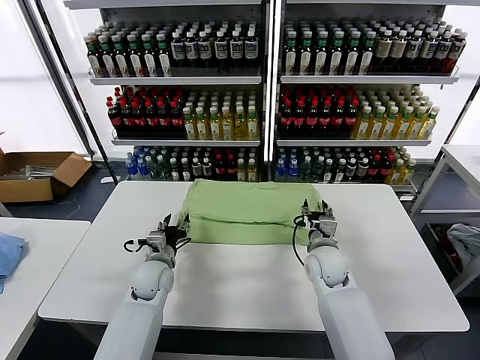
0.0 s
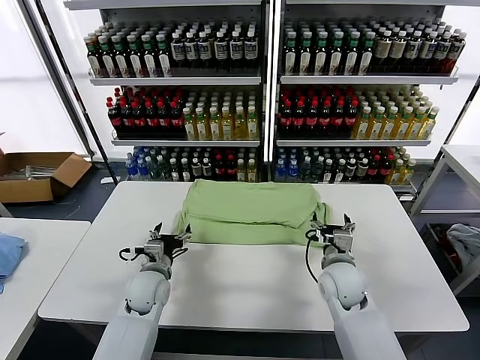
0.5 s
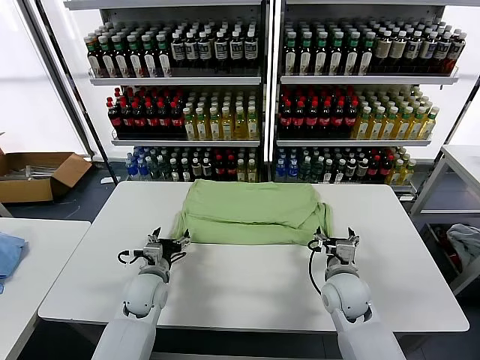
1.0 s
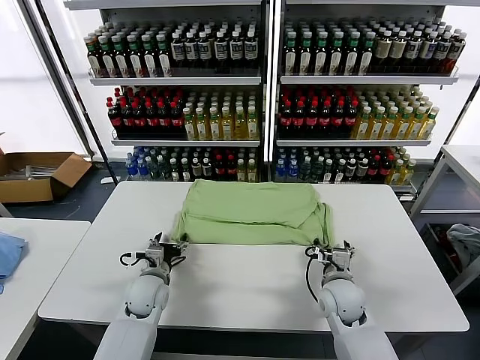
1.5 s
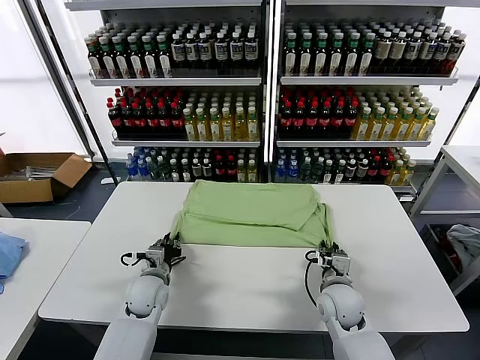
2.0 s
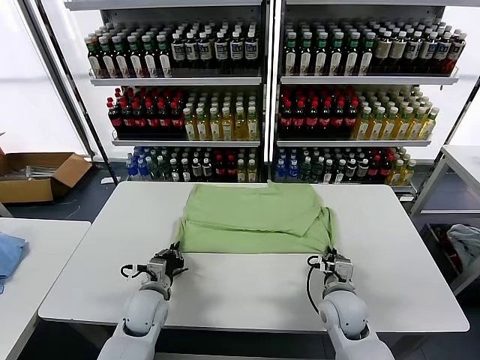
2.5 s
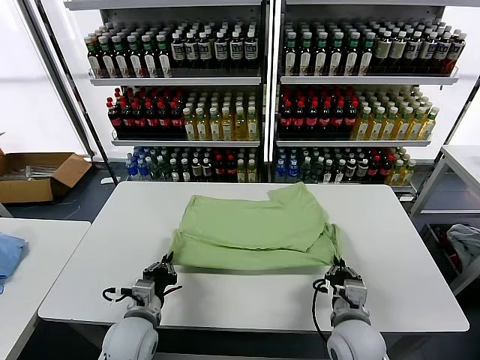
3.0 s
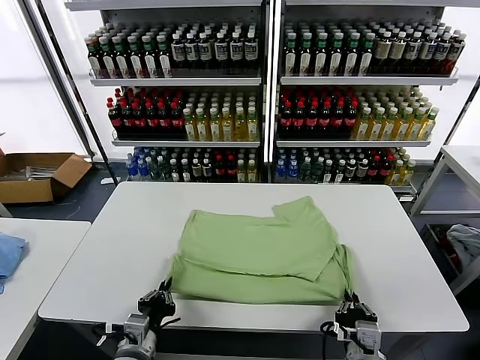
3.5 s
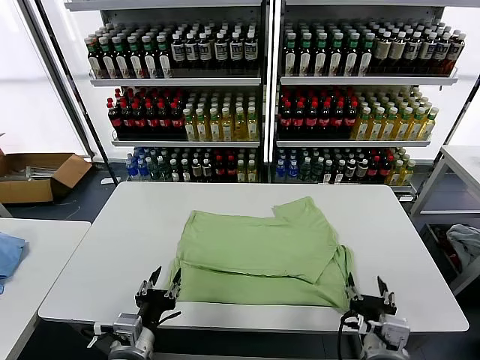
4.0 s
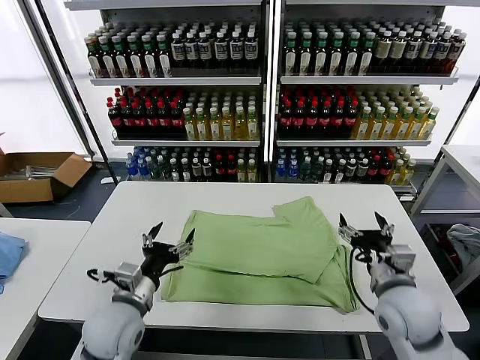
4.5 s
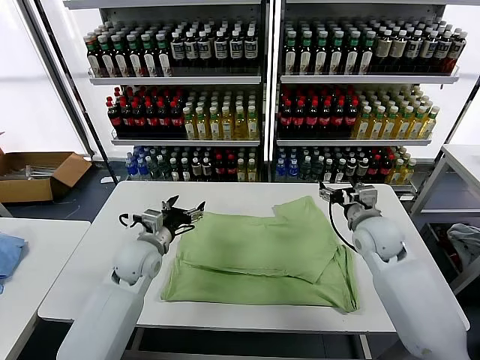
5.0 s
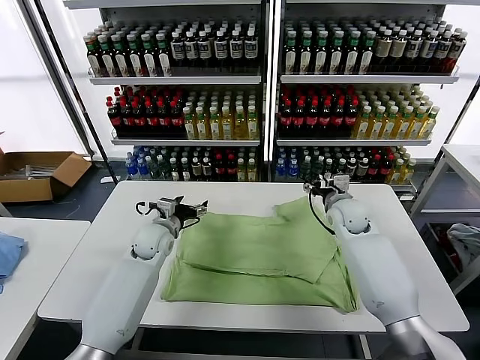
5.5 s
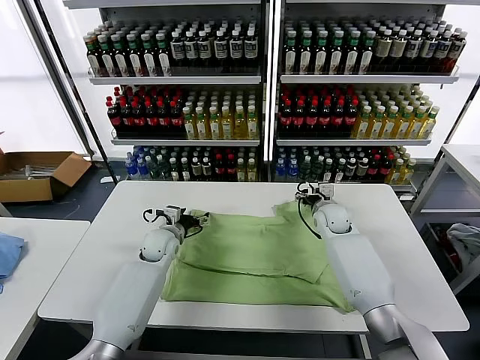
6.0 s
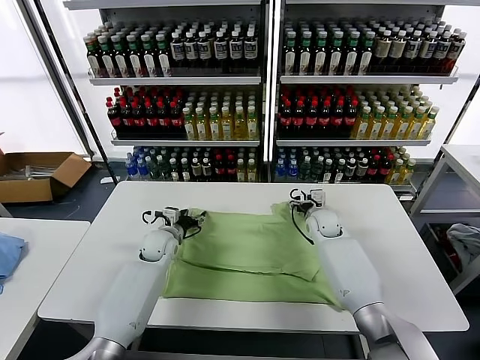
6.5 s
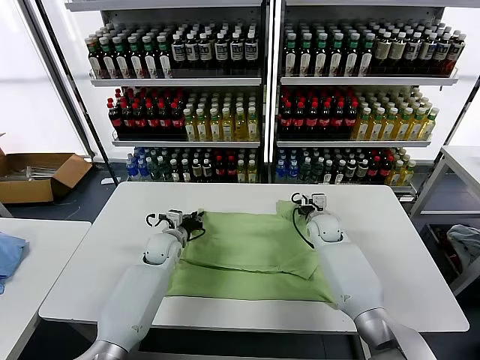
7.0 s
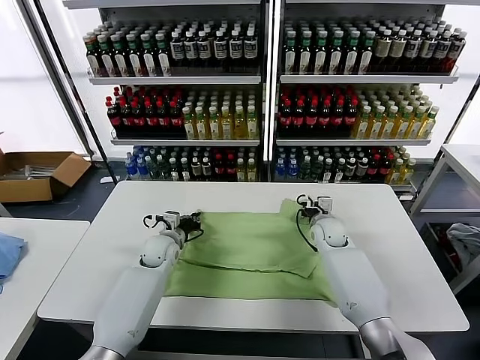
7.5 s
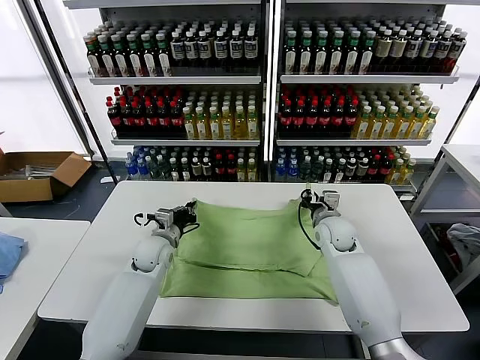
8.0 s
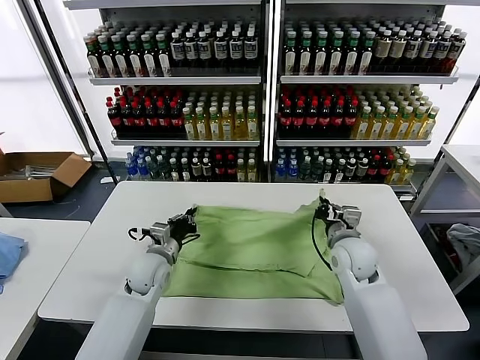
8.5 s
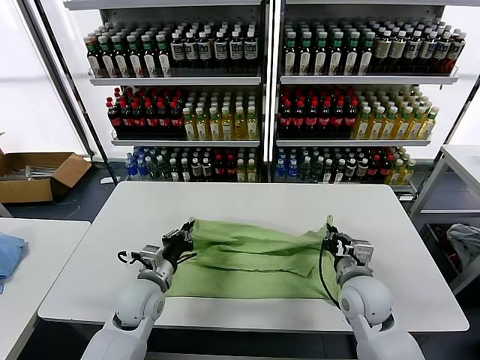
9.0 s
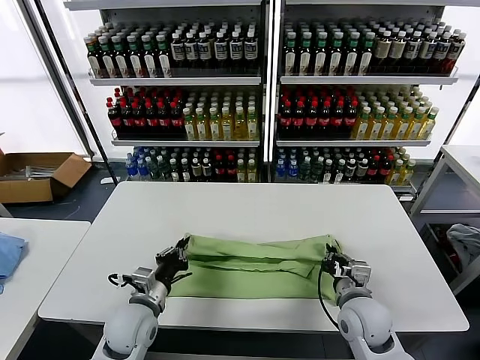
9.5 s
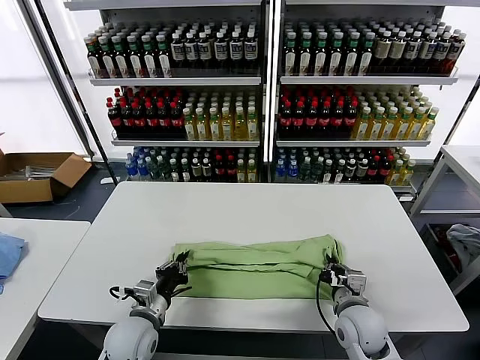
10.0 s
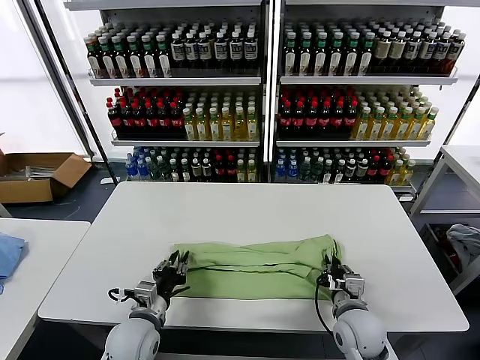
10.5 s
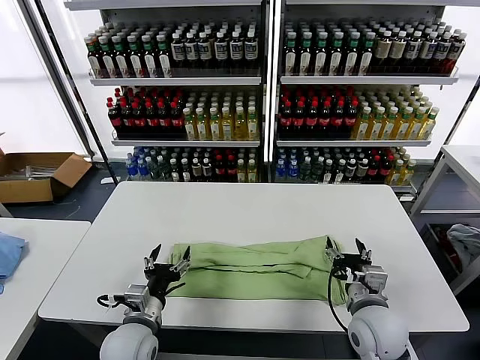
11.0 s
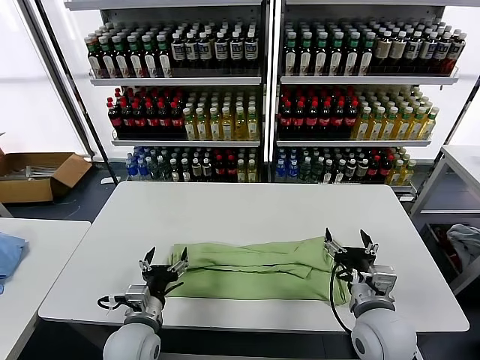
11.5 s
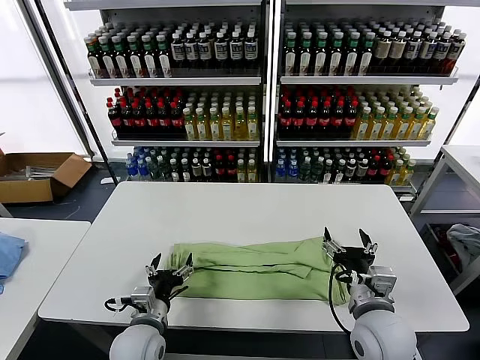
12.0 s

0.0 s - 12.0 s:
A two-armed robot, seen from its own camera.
Task of the whole recording: fold and organize the clothes.
Step, 0.0 s - 3.5 s: Drag the clothes downward with both gripper.
Step, 4.0 s - 7.0 s: use both grippers simultaneously to clamp the upper edge of the clothing fabric.
Step, 7.5 s - 10.5 s: use both grippers to drag the upper edge of the fabric backward and fold it over the lower edge.
0.0 s - 2.0 s: The left gripper opens, then closes once more. The right gripper is displaced backward and downward by approximately 10 cm, and closes up.
2.0 s - 4.0 s: The two grippers go roughly 20 cm backward and upward. The right gripper opens its fingers.
4.0 s - 6.0 s: The grippers both shift forward by approximately 35 cm. The left gripper opens its fingers.
6.0 s - 8.0 s: The right gripper goes approximately 5 cm backward, and closes, while the left gripper closes.
8.0 s - 10.0 s: Both grippers travel together backward, roughly 20 cm.
10.0 s - 12.0 s: The left gripper opens. Meanwhile the right gripper goes about 10 cm upward, and opens its fingers.

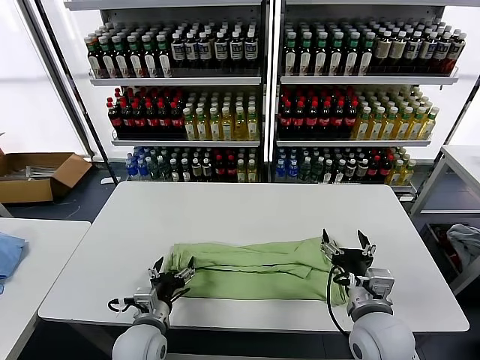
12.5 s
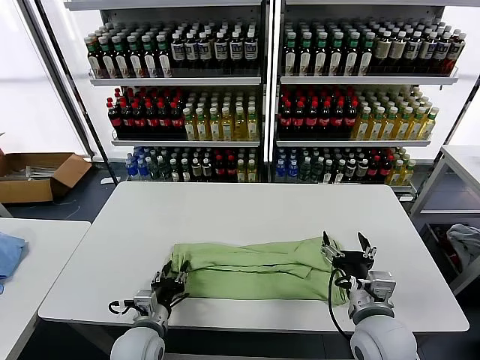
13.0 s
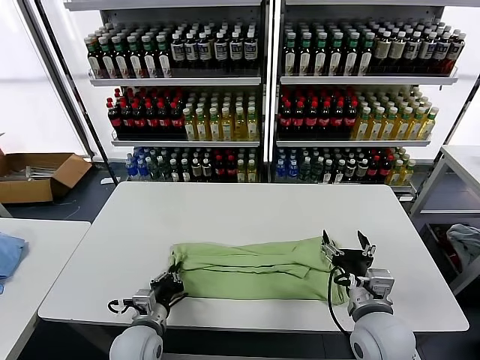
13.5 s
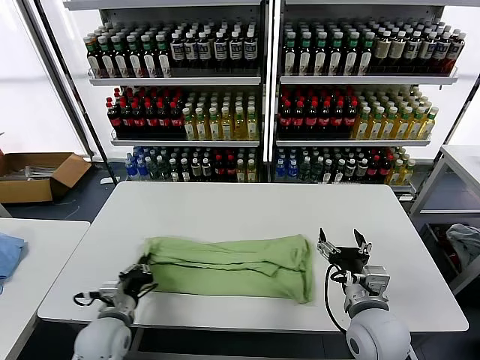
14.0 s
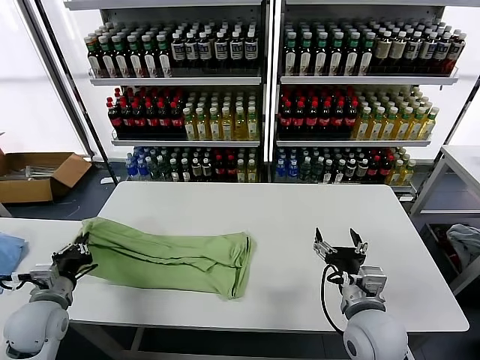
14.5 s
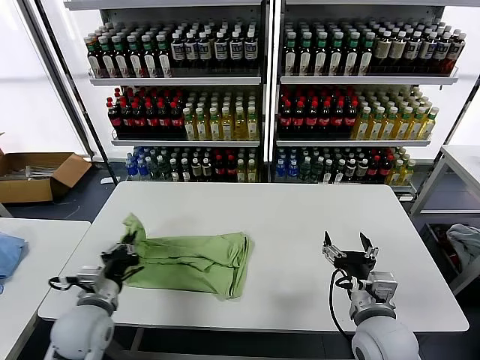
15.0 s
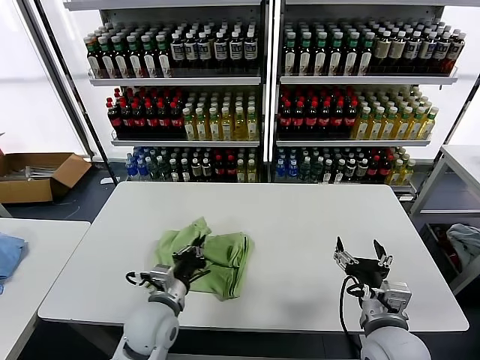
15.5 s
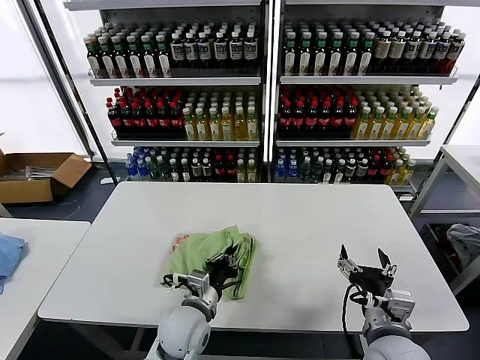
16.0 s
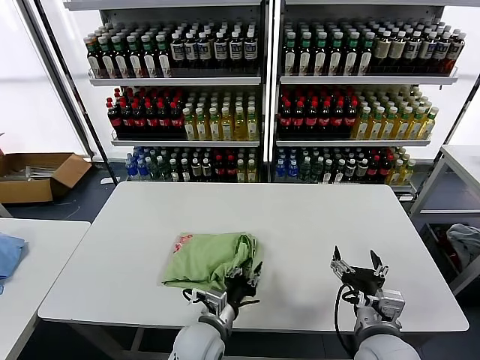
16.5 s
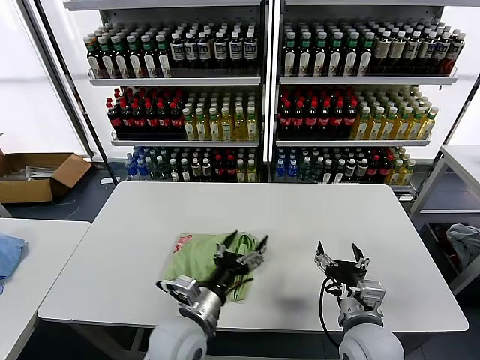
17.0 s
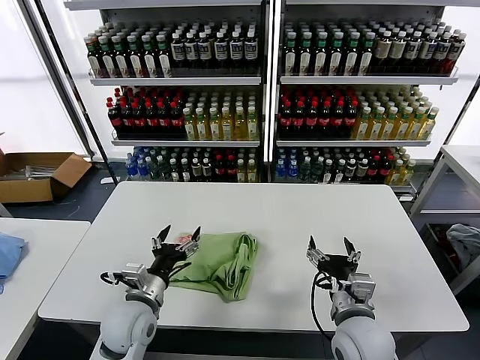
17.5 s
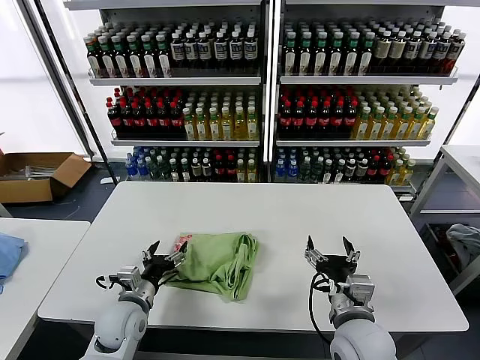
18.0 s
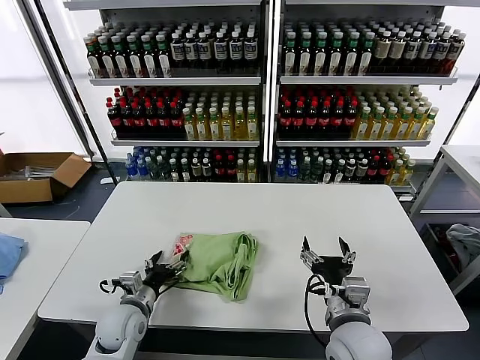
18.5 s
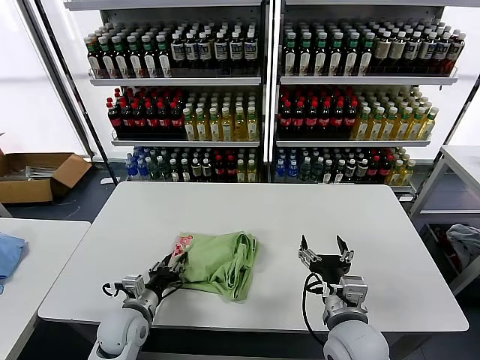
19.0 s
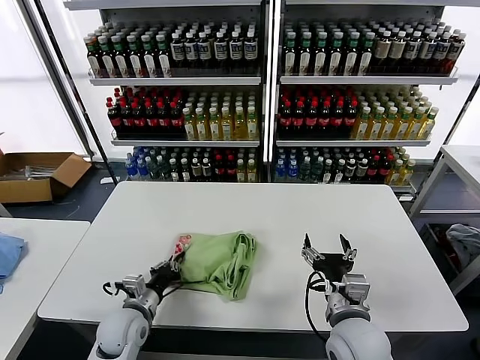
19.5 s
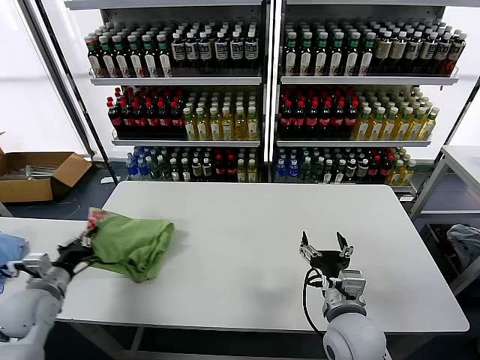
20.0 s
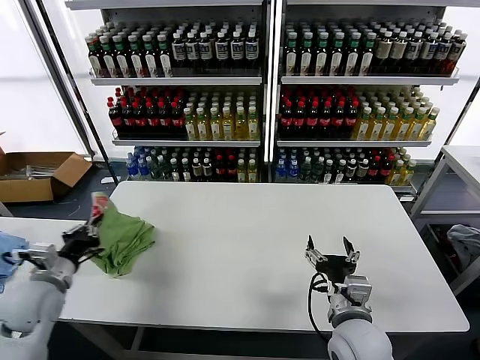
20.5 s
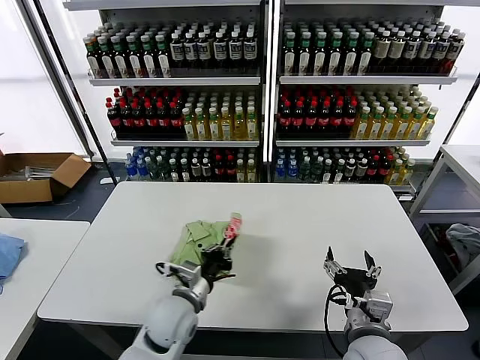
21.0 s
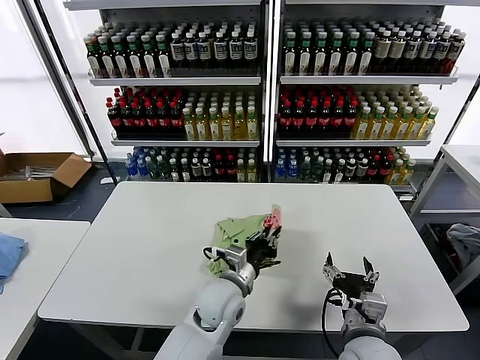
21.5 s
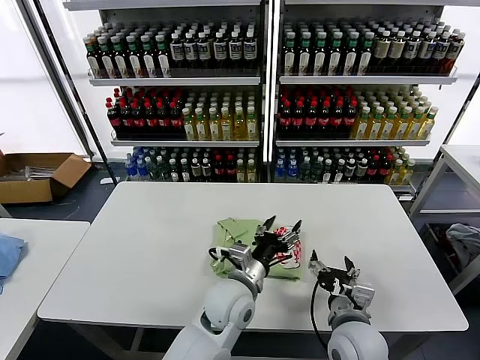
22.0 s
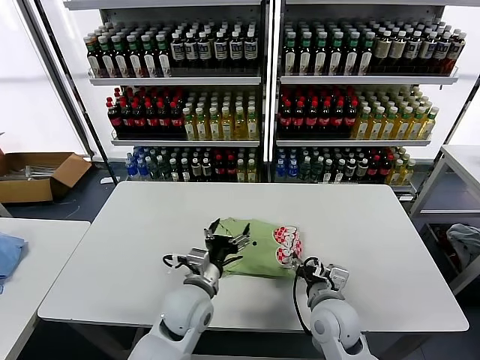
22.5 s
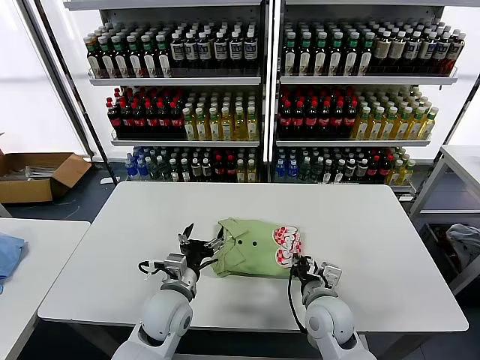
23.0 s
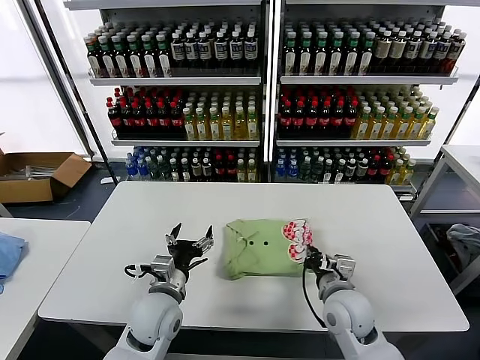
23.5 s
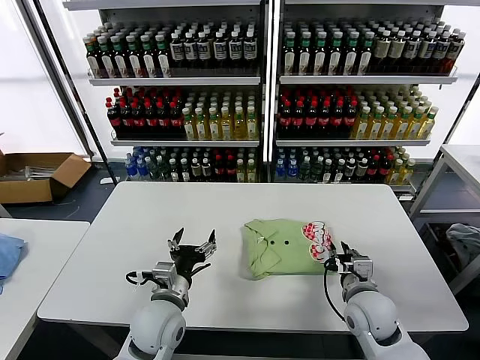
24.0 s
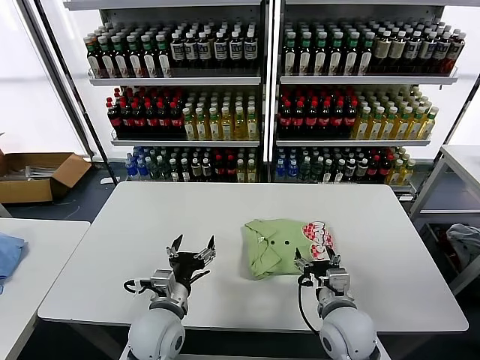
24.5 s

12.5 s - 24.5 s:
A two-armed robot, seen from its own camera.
Task of the whole recording: fold and organize the clothes.
Step, 14.0 s - 16.5 s: use the left gripper to drag the left edge of the fabric to the left and folds it over the right edge.
Step, 17.0 s - 21.5 s: Flip the folded clothes over with left gripper.
12.5 s - 14.5 s: The left gripper shifts approximately 20 cm to the left, and closes up.
14.5 s - 16.5 s: The left gripper is displaced to the right by about 30 cm.
16.5 s - 18.5 s: The right gripper changes place by some 5 cm, while the left gripper heads to the left, covering approximately 20 cm, and opens.
18.5 s - 20.5 s: The left gripper goes roughly 20 cm to the left and upward, and closes up.
20.5 s - 22.5 s: The left gripper travels to the right by approximately 30 cm, and opens up. The right gripper is displaced forward by some 5 cm.
22.5 s - 24.5 s: The left gripper moves to the left, some 5 cm. Meanwhile the right gripper goes to the right and returns, roughly 10 cm each way, and closes, then reopens.

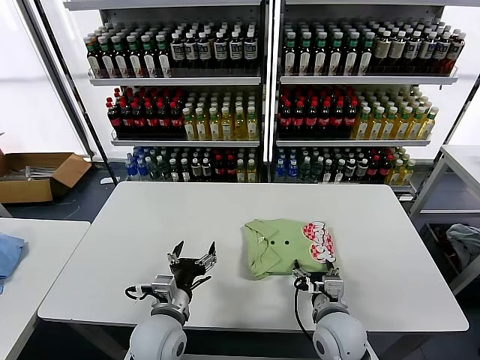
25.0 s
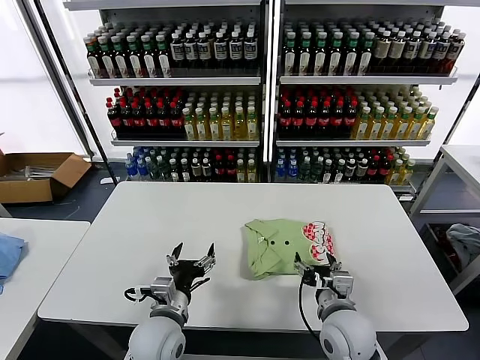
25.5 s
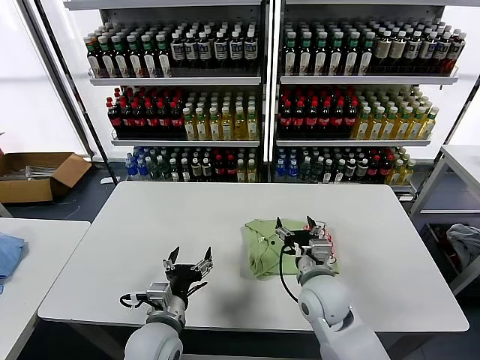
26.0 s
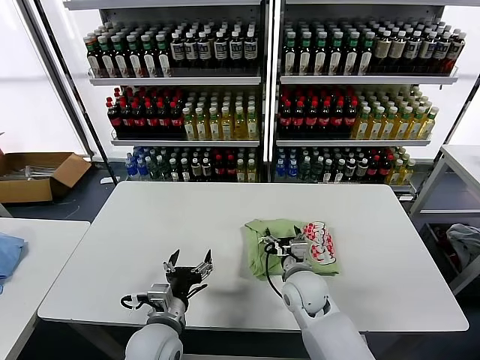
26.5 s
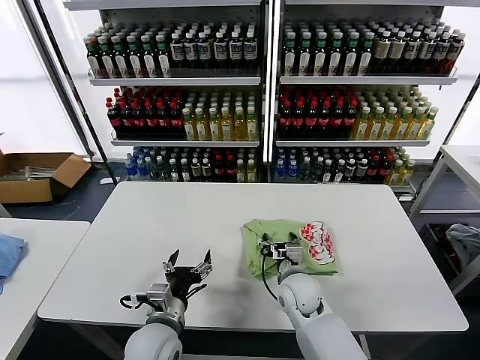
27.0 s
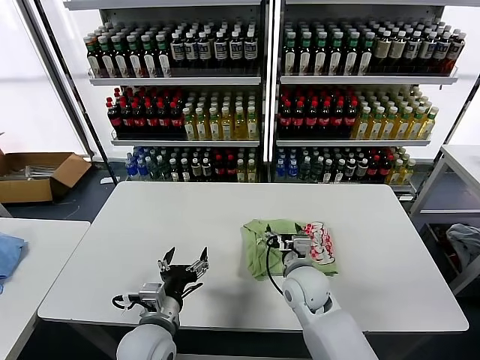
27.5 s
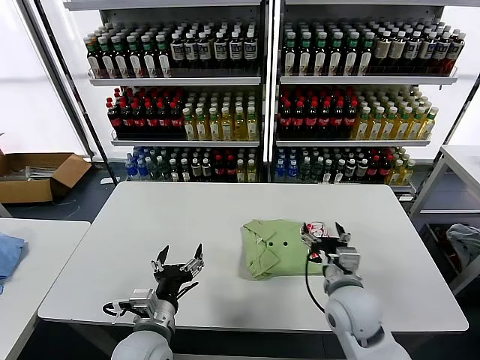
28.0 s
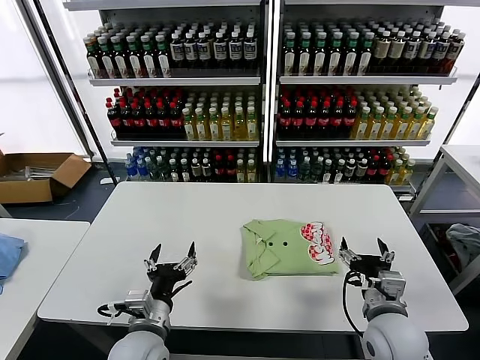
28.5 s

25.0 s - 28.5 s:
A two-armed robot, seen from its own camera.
Task of the whole recording: fold and organize the clothes.
Step, 25.0 s - 27.5 s: Drag the clothes to the center of the table.
25.0 s - 27.0 s: The right gripper moves forward and to the left, approximately 10 cm.
27.0 s - 28.5 s: The right gripper moves to the right, backward and upward, some 20 cm.
